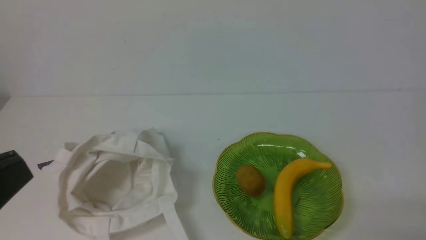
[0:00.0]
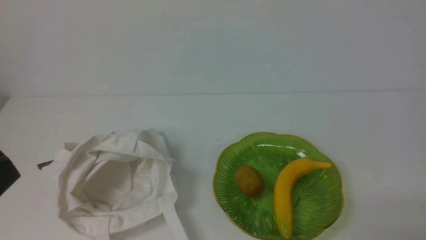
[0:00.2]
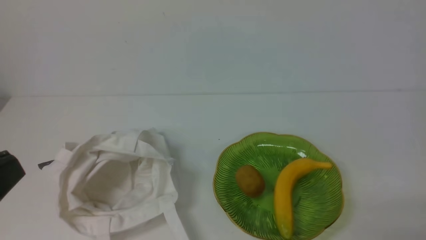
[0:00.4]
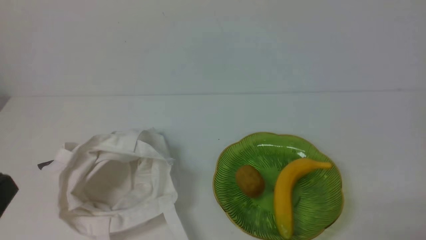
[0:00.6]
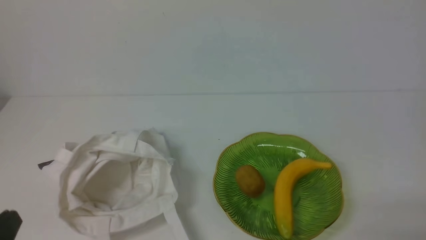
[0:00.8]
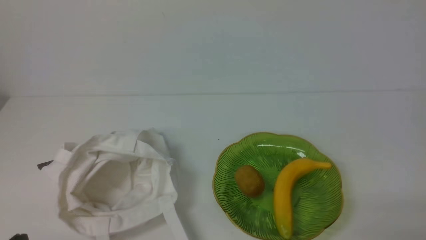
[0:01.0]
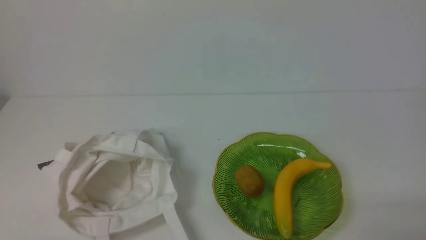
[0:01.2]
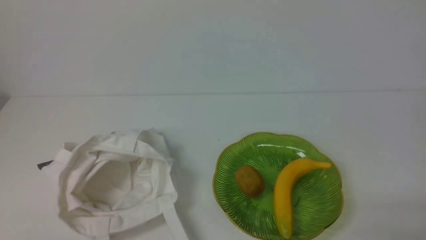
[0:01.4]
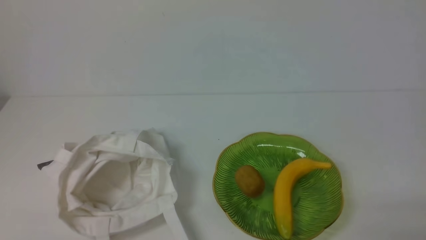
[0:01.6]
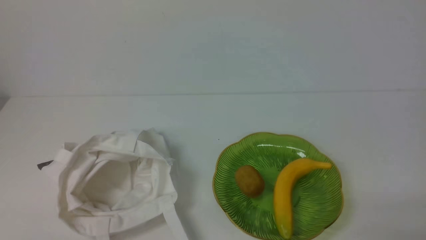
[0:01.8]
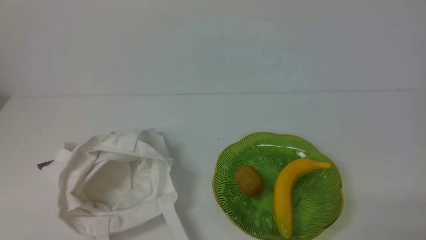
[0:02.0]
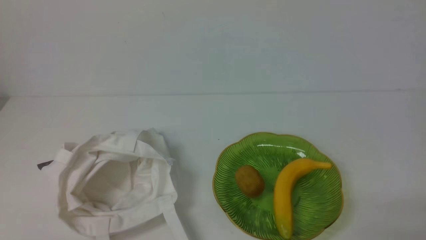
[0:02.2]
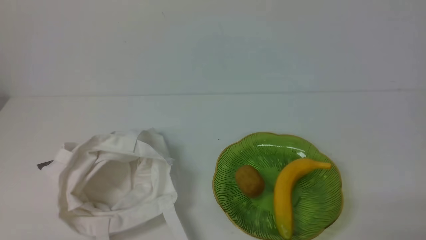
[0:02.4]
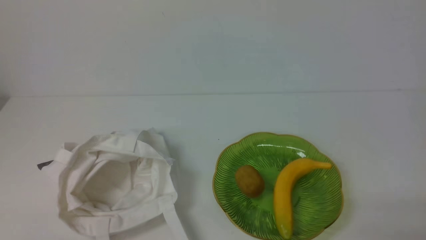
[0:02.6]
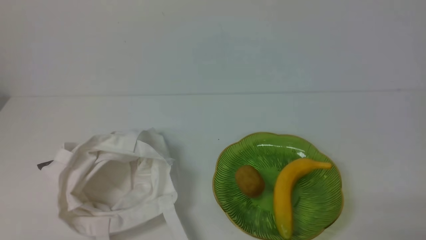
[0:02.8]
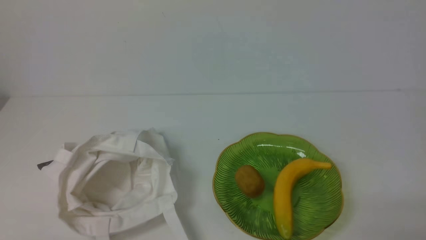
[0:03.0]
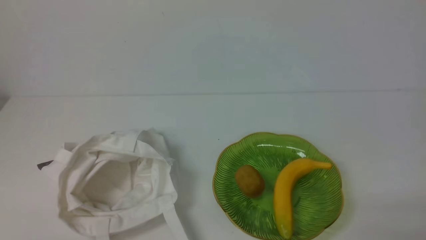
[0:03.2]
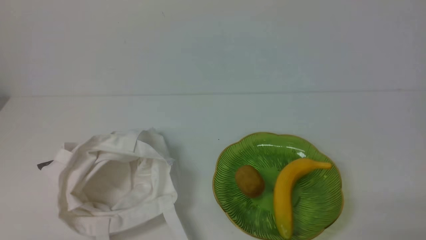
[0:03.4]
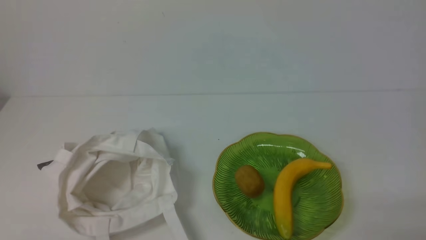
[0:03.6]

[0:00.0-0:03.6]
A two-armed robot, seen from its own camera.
0:00.0 to 0:01.8: The left gripper moves downward, approximately 20 cm.
0:01.8 to 0:03.6: The two grippers keep their place.
